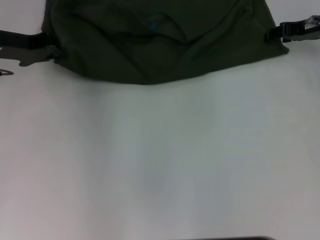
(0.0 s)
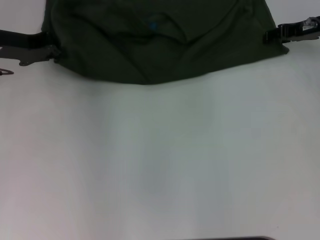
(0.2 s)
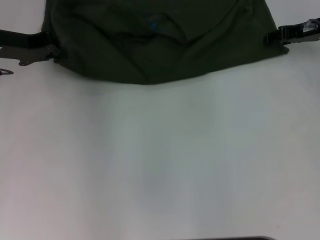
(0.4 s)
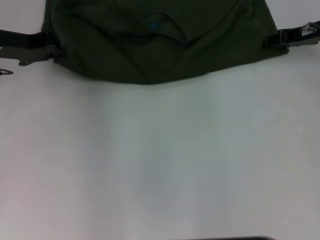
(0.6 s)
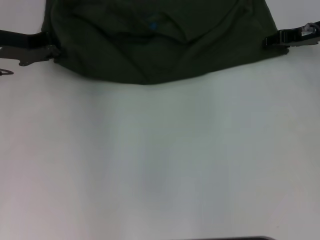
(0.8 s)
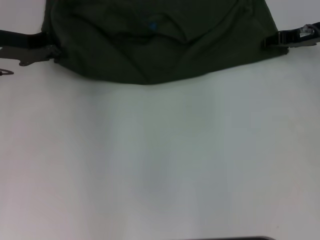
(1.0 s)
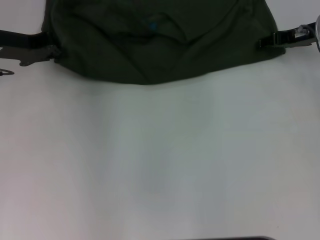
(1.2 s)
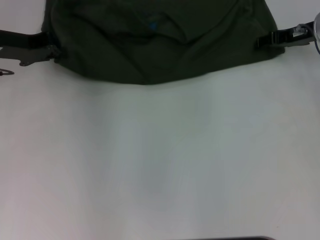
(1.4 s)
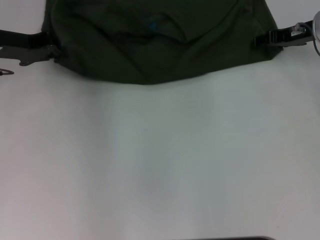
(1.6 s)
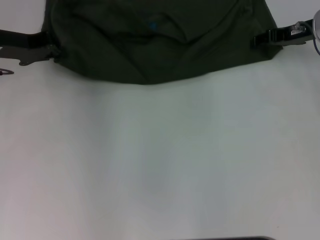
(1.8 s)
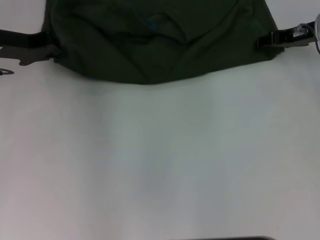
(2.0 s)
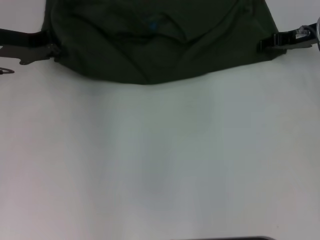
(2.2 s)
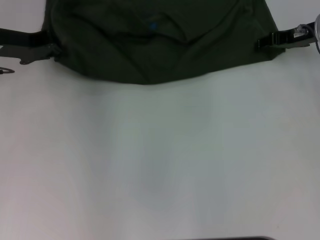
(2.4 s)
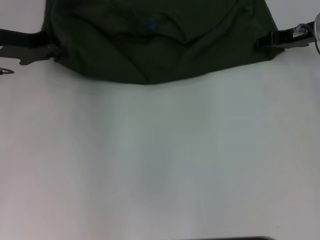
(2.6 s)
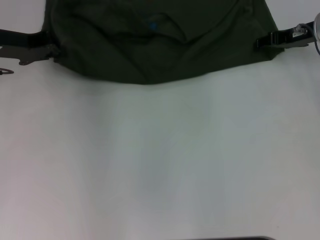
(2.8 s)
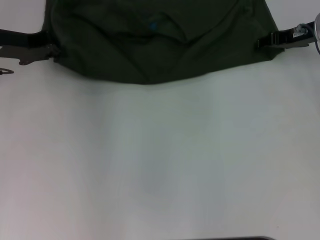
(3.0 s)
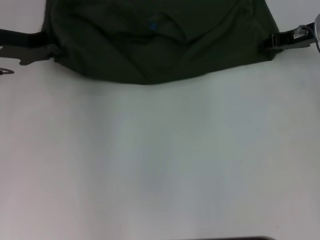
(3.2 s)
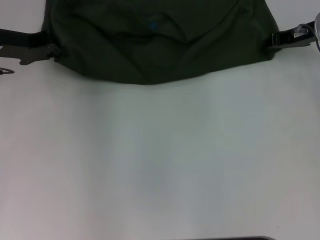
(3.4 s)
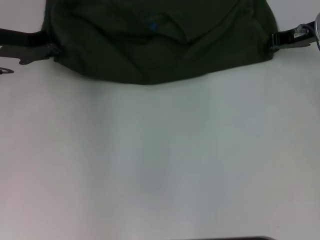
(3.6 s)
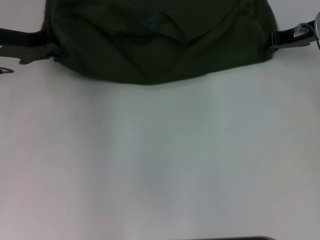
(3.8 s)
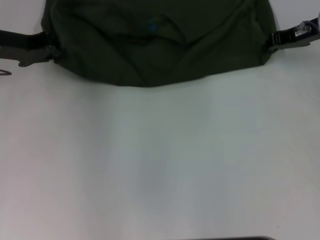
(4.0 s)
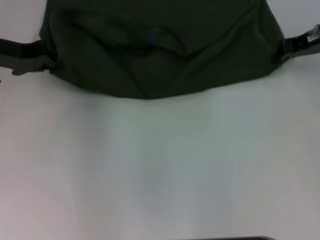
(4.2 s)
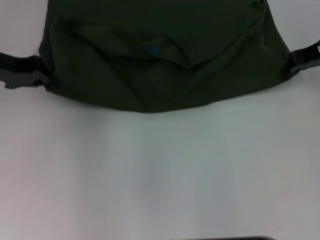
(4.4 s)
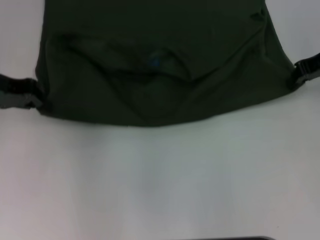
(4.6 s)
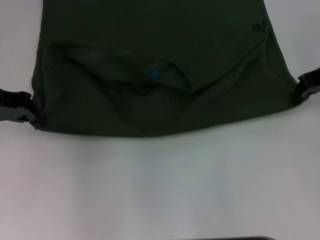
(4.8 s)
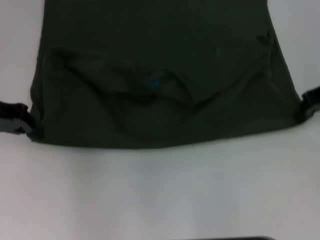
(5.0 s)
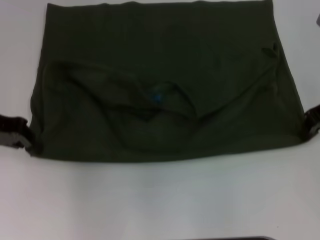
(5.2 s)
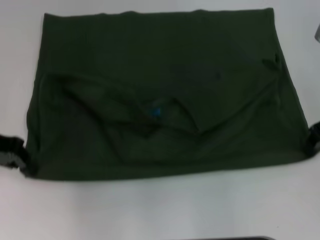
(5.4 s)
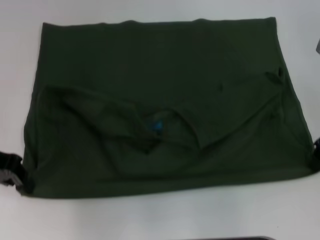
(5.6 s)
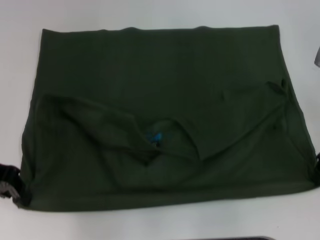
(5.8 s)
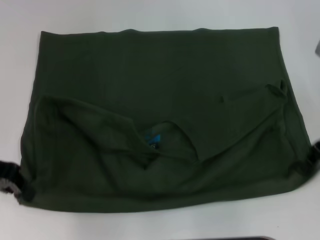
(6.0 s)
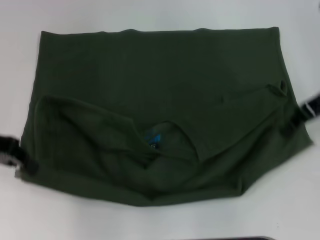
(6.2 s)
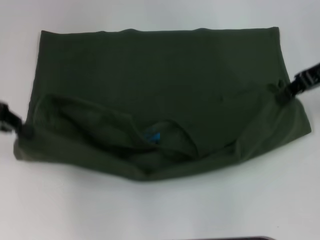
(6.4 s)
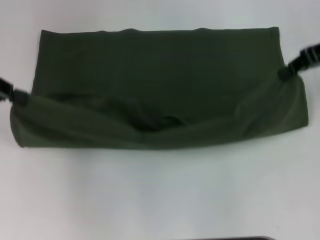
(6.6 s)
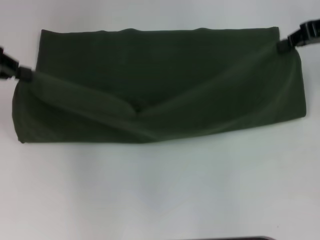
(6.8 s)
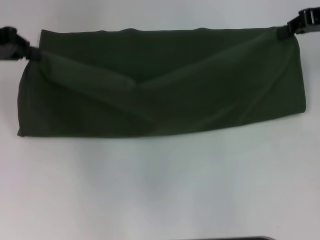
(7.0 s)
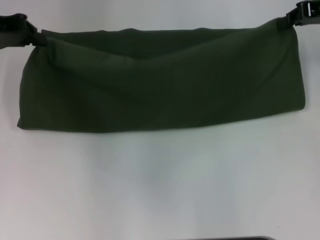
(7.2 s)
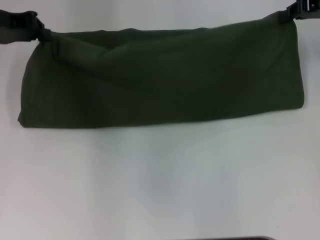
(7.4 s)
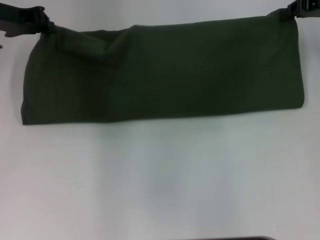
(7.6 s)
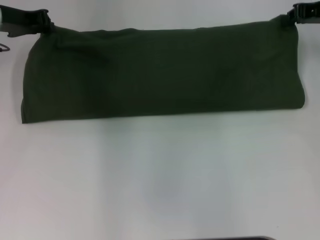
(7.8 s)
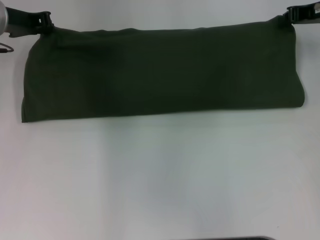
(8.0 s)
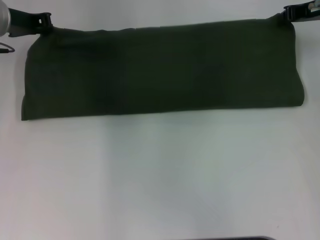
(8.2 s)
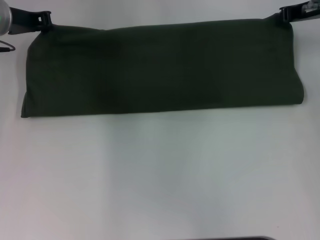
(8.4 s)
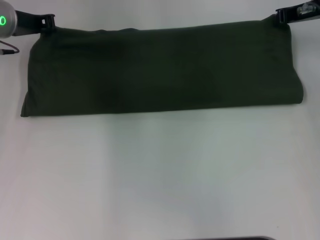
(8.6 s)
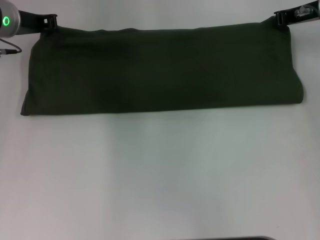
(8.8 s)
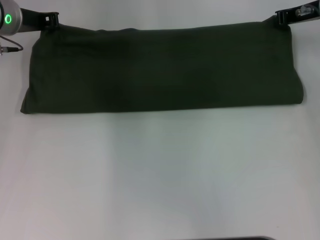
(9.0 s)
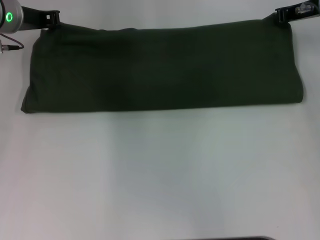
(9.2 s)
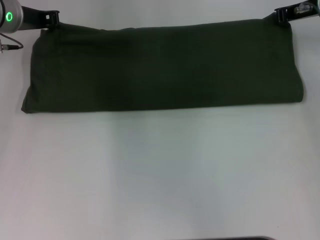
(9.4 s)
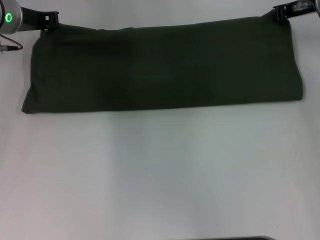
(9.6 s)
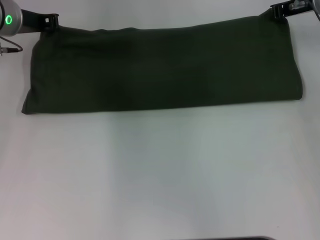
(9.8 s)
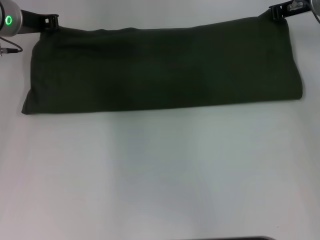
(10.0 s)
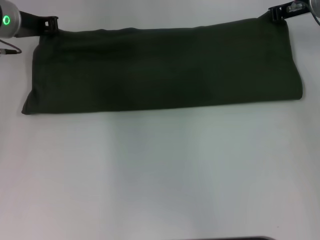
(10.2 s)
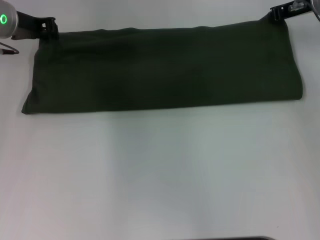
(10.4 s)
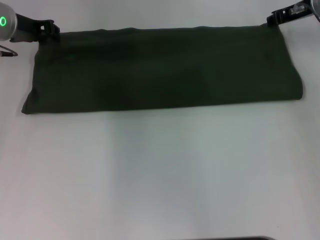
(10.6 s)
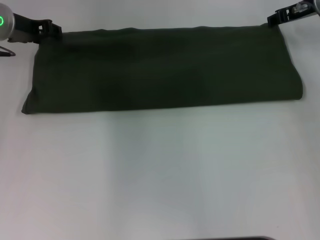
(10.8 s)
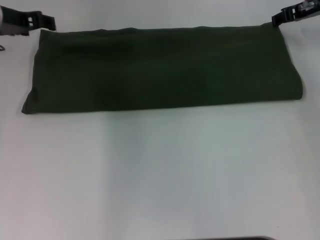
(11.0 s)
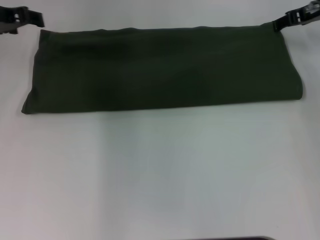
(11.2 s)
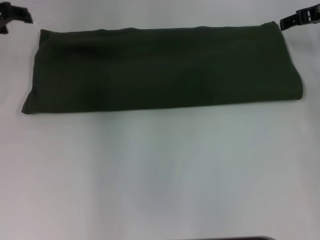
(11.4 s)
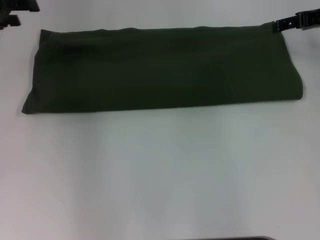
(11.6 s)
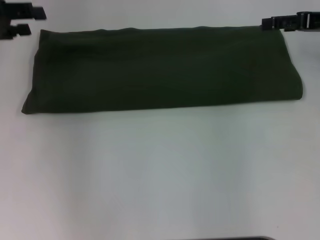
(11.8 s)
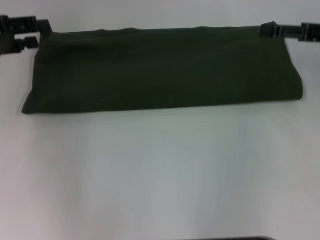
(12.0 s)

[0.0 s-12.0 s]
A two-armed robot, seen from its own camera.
Step, 0.0 to 5.8 s: Pull the clothes with your left hand.
Step, 0.0 to 5.8 s: Pull the clothes with your right hand.
Step, 6.0 to 11.0 s: Fold the clothes with your left hand.
Step, 6.0 to 11.0 s: Fold the clothes with your right hand.
0.0 to 1.6 s: The grippers make only small movements.
1.6 to 3.0 s: The two grippers keep their place.
3.0 to 4.4 s: The right gripper changes place by approximately 5 cm, and closes its fingers.
4.4 to 6.0 s: Both grippers travel together backward, roughly 10 cm.
6.0 to 7.6 s: The two grippers go roughly 10 cm forward.
7.6 to 9.0 s: The right gripper changes place by some 5 cm, while the left gripper moves approximately 5 cm.
9.0 to 10.4 s: The grippers make only small movements.
10.4 to 12.0 s: The right gripper heads backward and to the right, covering approximately 10 cm, and opens its fingers, while the left gripper moves backward and to the left, roughly 10 cm, and opens.

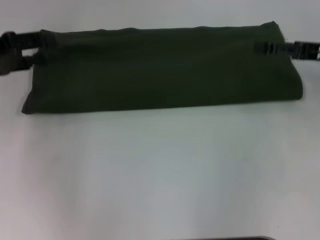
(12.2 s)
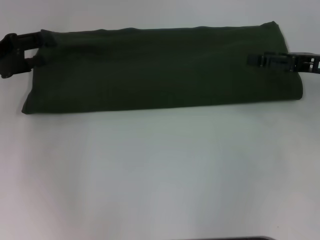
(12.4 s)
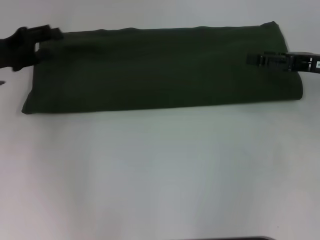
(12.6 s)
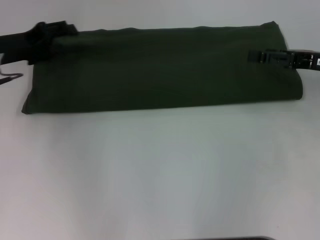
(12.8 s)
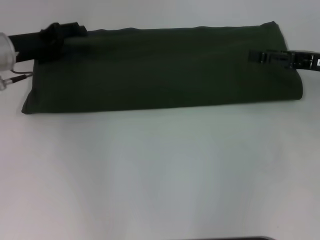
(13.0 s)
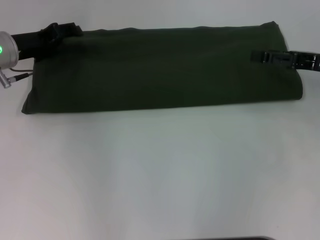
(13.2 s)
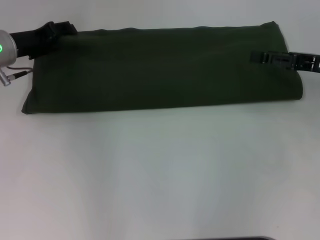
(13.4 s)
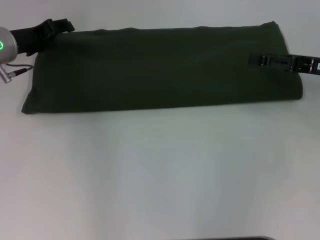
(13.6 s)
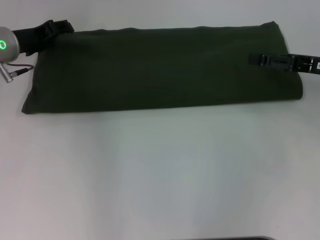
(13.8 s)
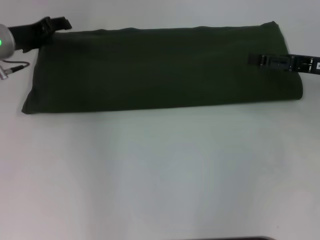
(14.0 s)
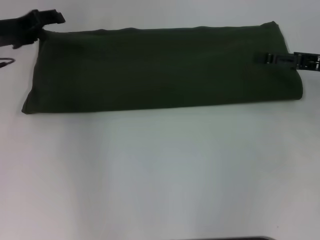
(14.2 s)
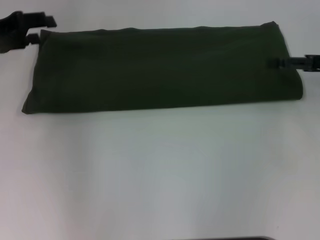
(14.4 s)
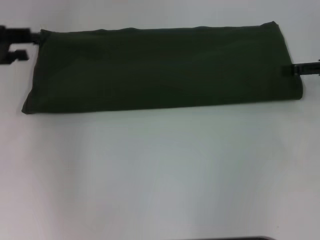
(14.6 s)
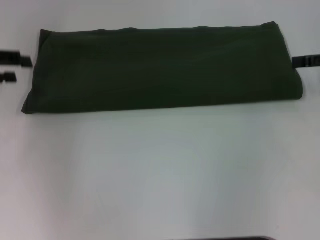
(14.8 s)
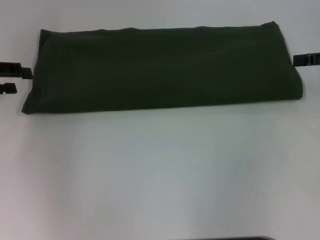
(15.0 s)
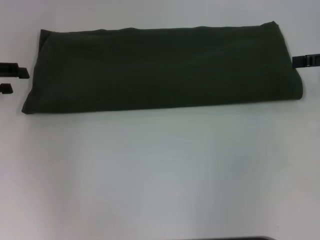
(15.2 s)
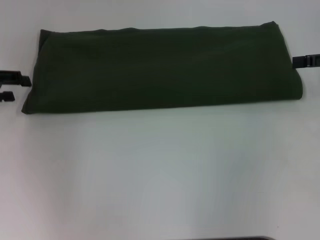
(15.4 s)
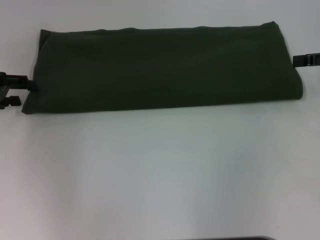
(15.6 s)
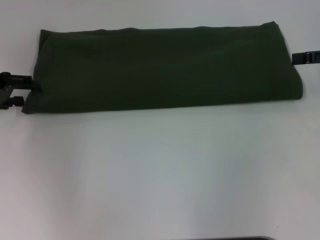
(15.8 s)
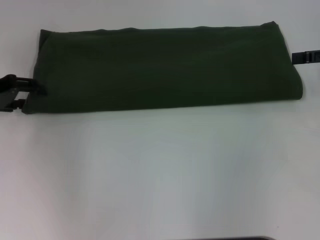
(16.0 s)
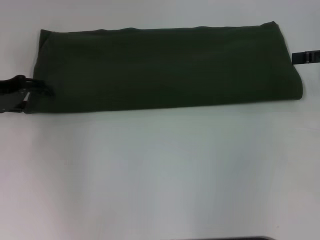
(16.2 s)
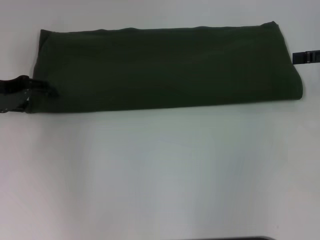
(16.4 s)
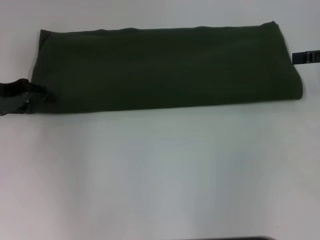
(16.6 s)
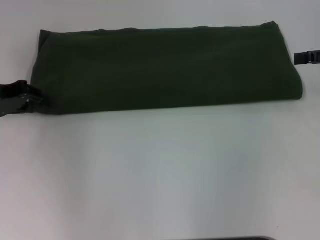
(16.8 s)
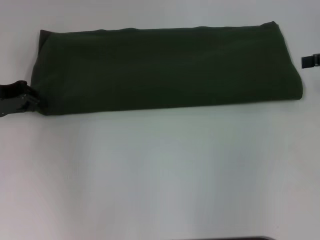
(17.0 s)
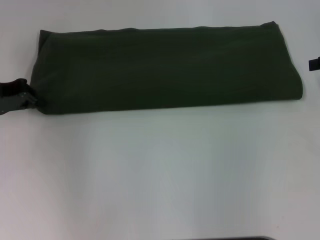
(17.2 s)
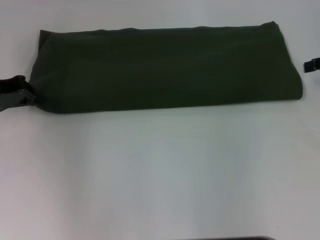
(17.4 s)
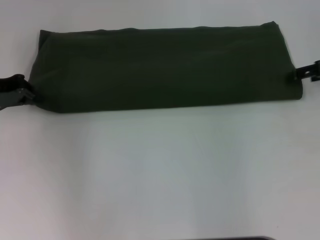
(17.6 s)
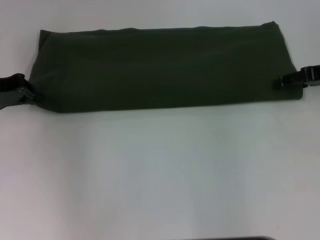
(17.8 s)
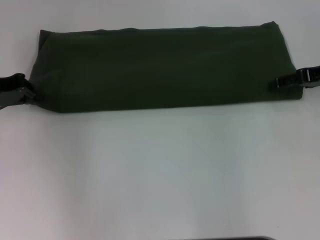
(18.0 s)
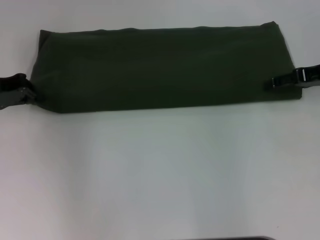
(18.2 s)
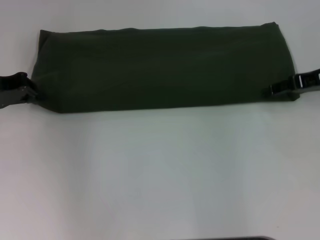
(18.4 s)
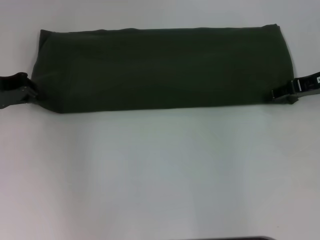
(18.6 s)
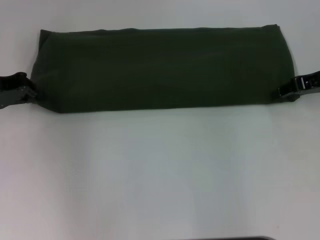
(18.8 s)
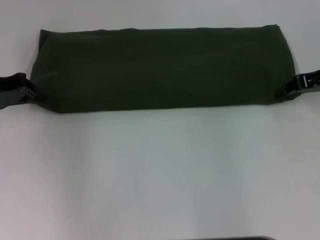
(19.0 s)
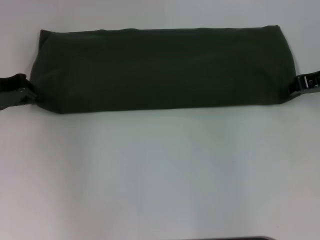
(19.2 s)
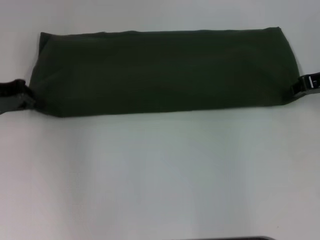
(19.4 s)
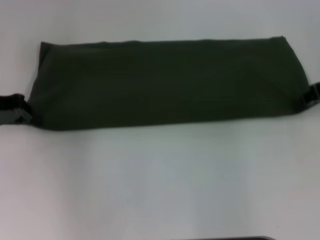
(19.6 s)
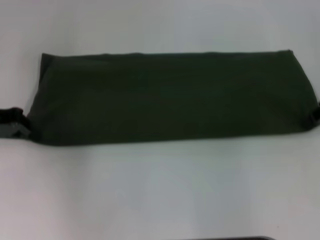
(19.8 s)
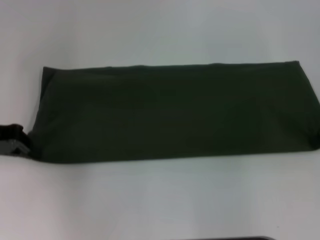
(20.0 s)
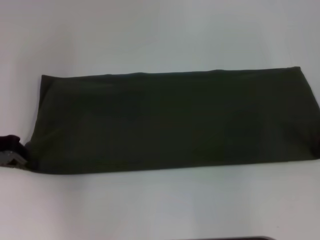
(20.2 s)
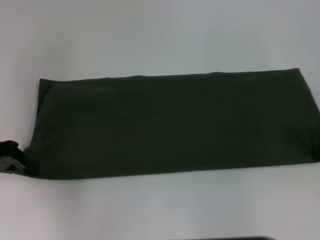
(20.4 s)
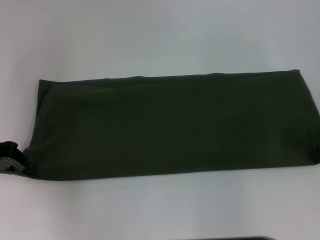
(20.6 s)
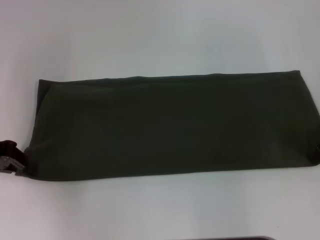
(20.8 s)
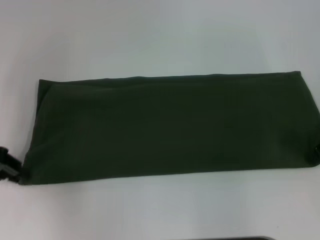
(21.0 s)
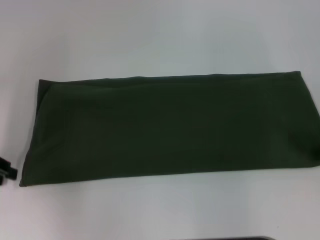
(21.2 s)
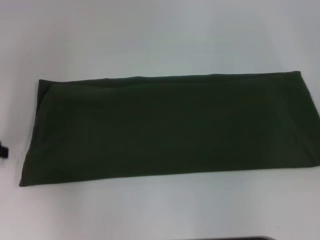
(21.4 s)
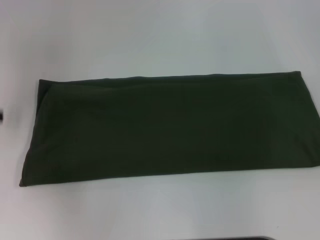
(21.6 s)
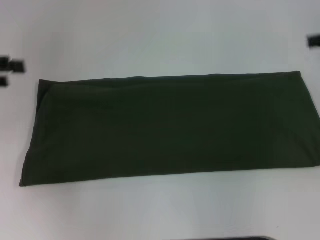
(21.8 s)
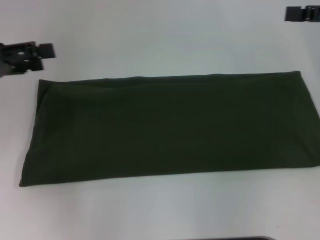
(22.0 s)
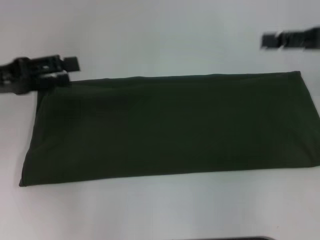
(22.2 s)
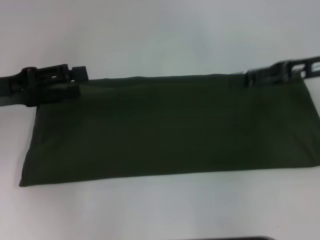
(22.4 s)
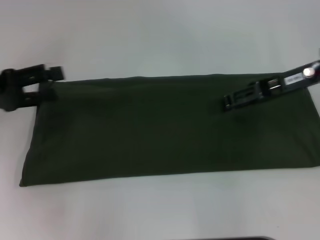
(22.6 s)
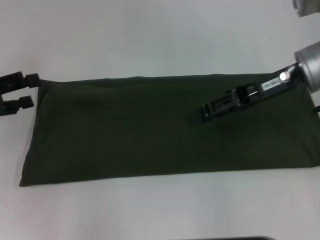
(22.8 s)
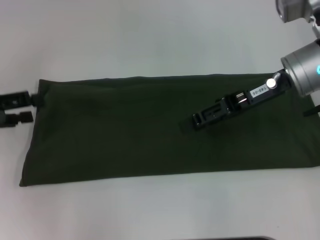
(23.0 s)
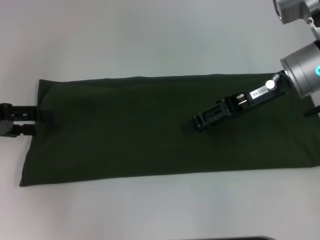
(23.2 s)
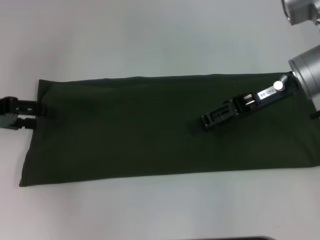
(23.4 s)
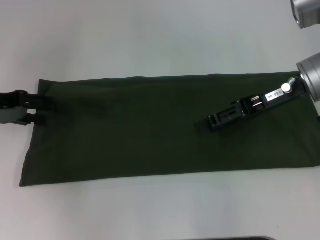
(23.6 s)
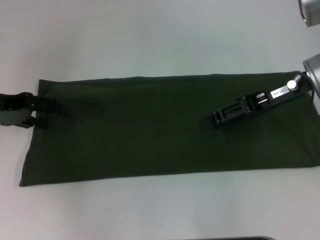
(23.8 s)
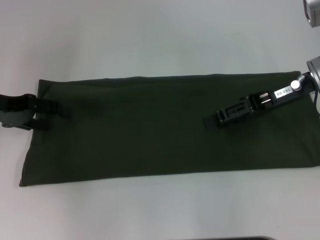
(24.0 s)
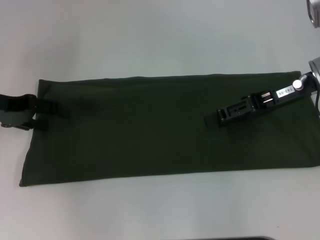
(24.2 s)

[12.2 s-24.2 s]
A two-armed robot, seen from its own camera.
Step, 12.2 to 21.2 s: Pull the clothes with your left hand.
Step, 12.2 to 21.2 s: Pull the clothes with your right hand.
12.2 to 13.8 s: The left gripper shifts roughly 10 cm forward and to the right.
13.8 to 15.2 s: The left gripper shifts roughly 10 cm to the left and backward.
15.2 to 16.6 s: The grippers stay close to where they were, moving slightly.
16.6 to 18.2 s: The right gripper changes place by about 5 cm. The left gripper closes.
18.2 to 19.8 s: The right gripper closes its fingers.
21.2 to 22.6 s: The left gripper opens, while the right gripper travels to the left by some 10 cm, and opens its fingers.
